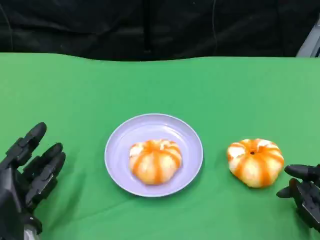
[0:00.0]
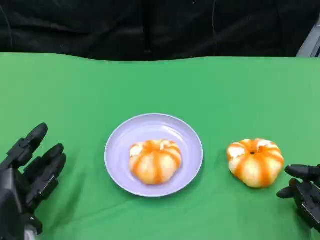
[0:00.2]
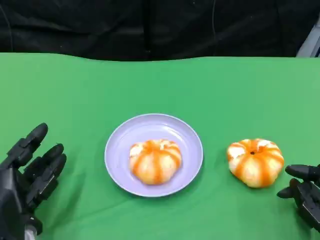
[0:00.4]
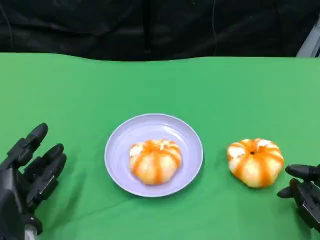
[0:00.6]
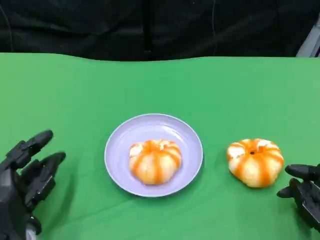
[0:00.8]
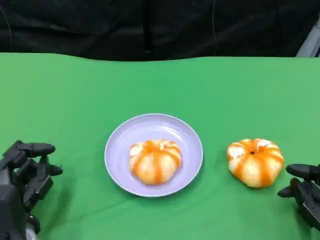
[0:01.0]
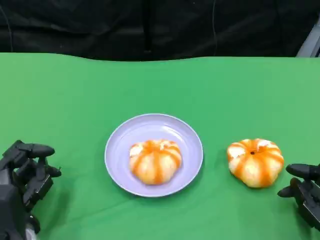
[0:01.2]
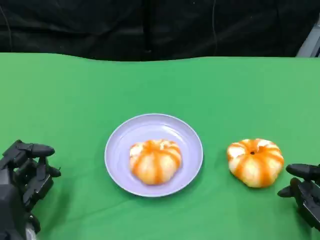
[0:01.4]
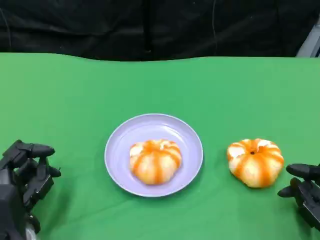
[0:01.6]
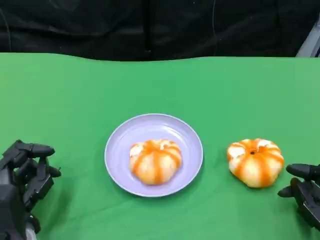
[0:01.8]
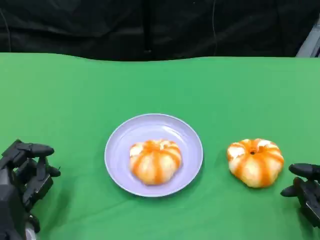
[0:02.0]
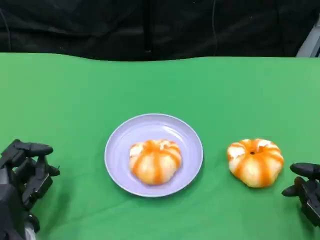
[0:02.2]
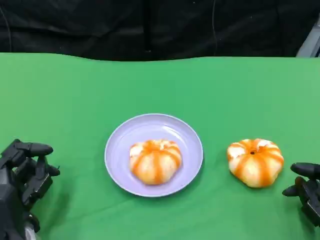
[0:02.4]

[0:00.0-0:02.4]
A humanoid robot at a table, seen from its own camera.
Task of the whole recording: Grasp the bread from the table and place it into the plate.
0.0 to 1.2 s: The hands move only a little.
1.2 to 2.4 s: Both hands stay about where they are.

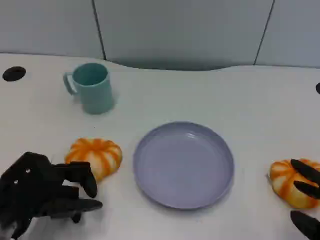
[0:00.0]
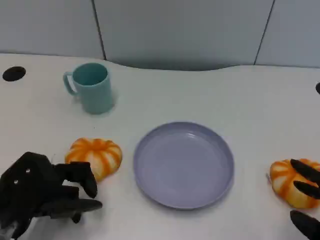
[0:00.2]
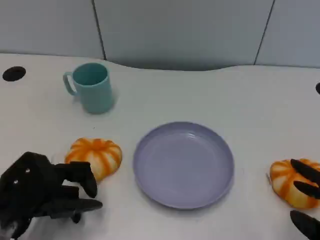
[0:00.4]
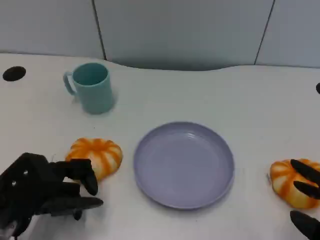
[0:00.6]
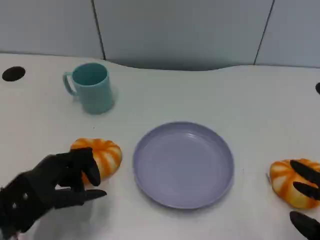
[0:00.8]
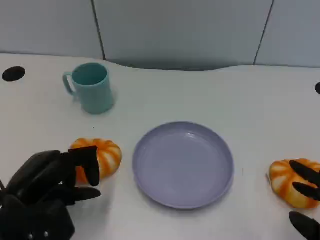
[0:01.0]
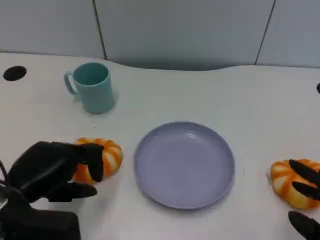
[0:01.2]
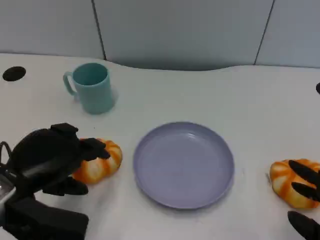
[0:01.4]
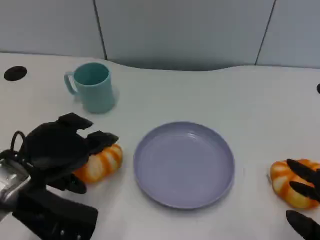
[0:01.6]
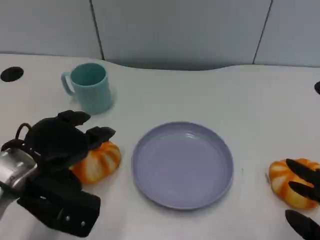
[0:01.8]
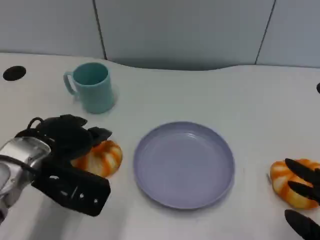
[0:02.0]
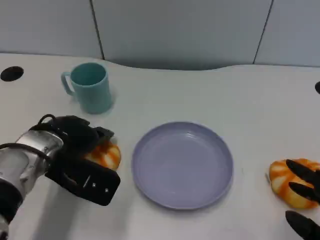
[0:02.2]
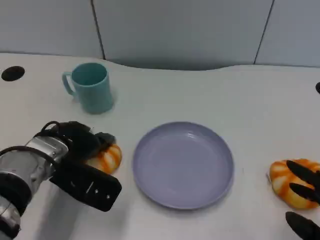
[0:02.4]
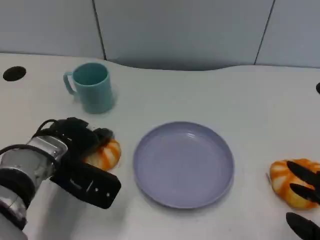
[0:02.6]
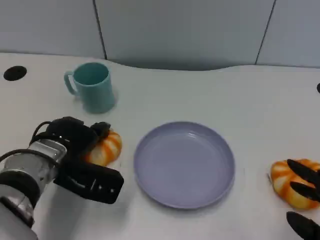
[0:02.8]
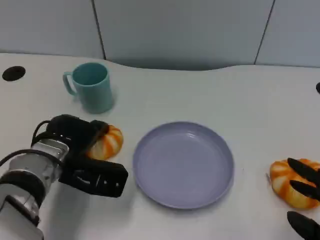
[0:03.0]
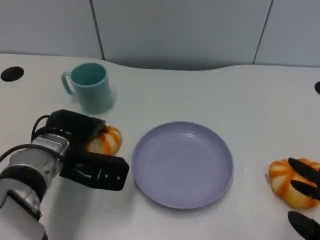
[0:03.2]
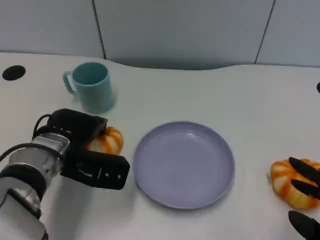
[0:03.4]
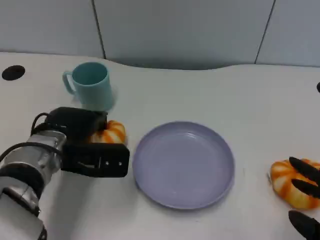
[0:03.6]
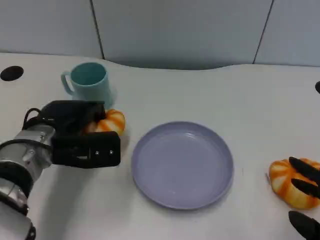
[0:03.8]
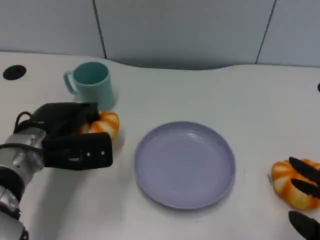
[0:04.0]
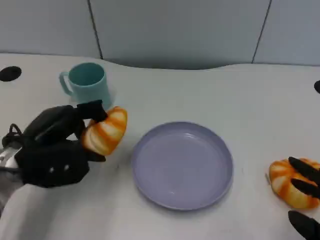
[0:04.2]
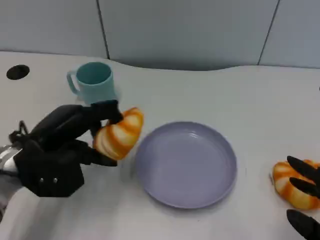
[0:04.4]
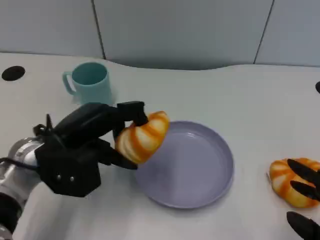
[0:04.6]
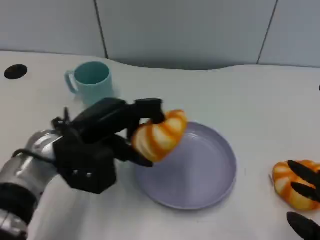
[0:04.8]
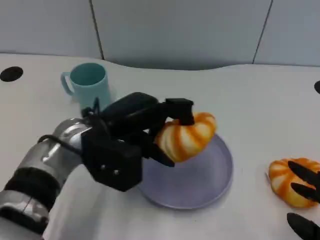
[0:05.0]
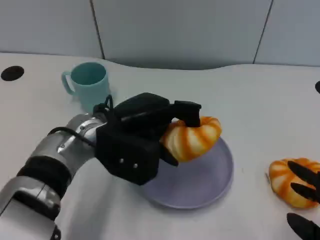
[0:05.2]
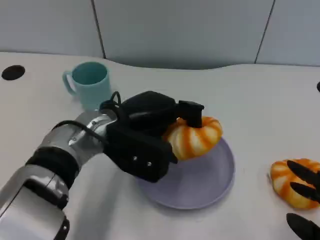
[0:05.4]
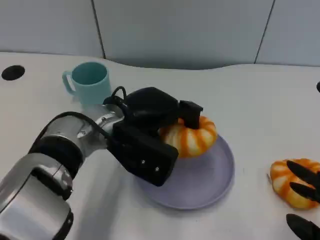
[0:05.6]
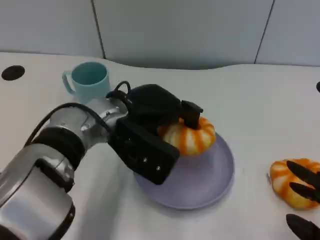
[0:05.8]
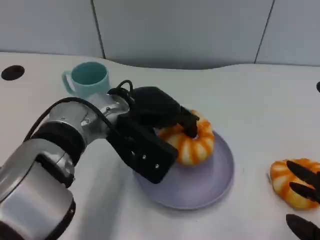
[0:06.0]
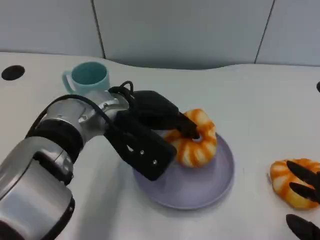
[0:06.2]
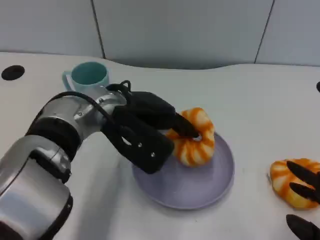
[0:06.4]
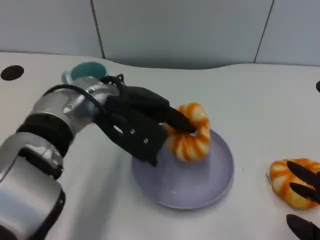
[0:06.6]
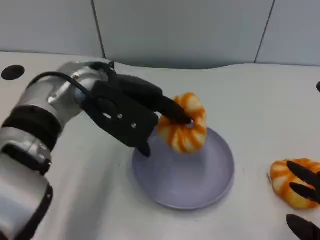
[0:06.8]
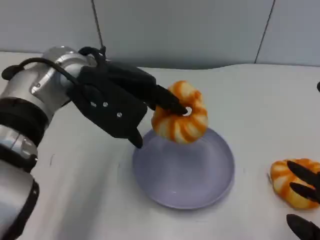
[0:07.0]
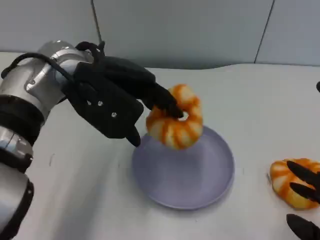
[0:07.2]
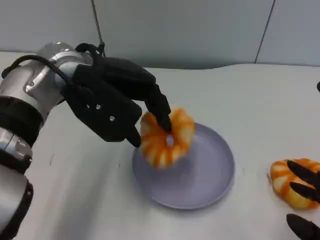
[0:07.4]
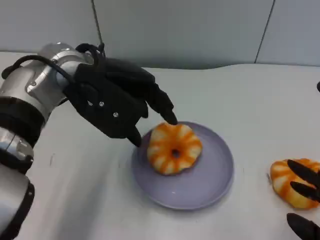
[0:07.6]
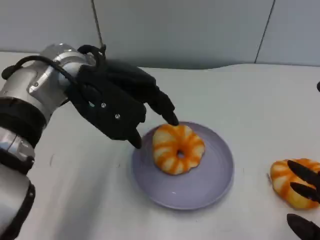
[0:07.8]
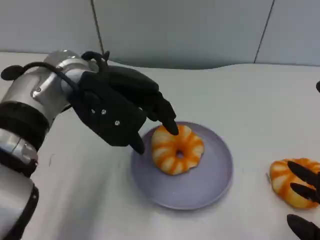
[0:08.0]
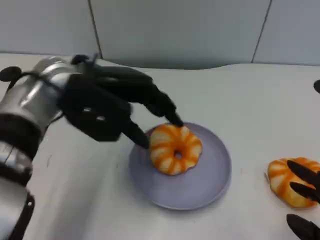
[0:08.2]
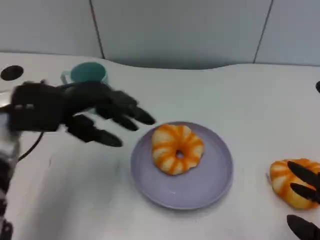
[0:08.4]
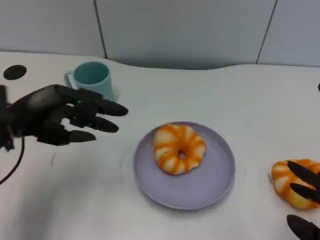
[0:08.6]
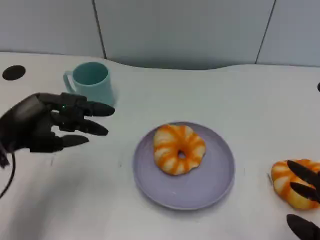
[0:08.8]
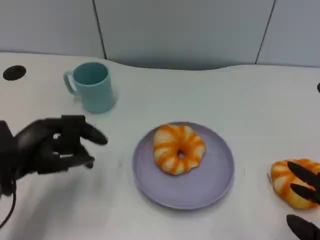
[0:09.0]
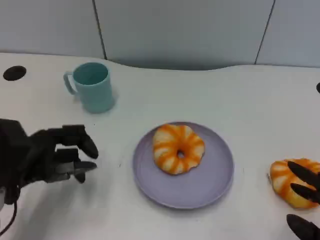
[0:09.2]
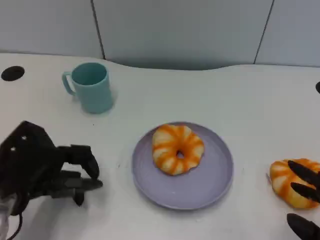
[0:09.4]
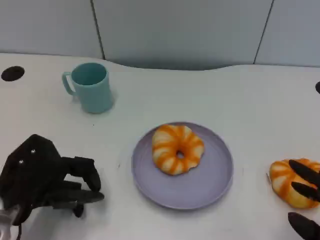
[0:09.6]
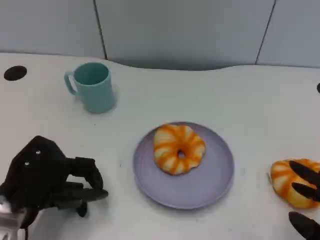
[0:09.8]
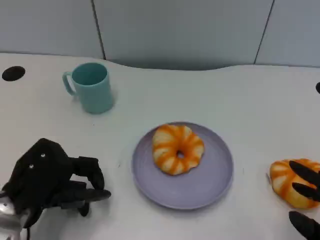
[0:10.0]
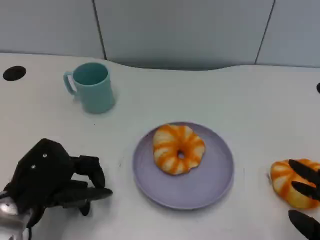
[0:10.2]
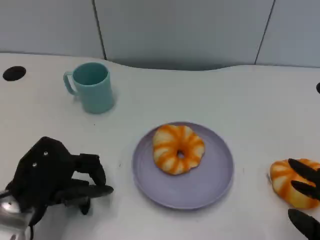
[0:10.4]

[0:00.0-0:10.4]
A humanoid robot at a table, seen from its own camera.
Task of the whole recording: Grasp the bread from the table and place it into the plate.
0.0 to 1.4 s: The left hand shifts some 5 cm upward.
1.4 to 3.0 s: The left hand is displaced forward by about 10 cm.
3.0 to 4.4 s: The left hand shifts by some 5 cm.
4.4 to 6.0 s: The left hand moves to the right, approximately 10 cm.
6.0 to 7.4 s: The left hand travels upward by some 10 cm.
7.4 to 9.0 s: The left hand moves to the left, downward and backward, about 20 cm.

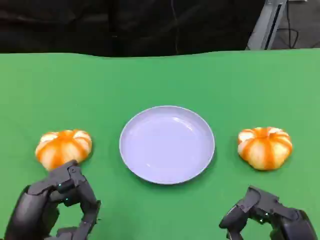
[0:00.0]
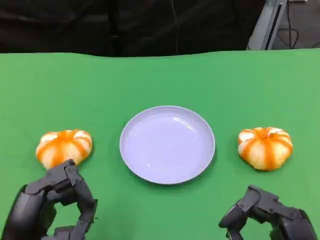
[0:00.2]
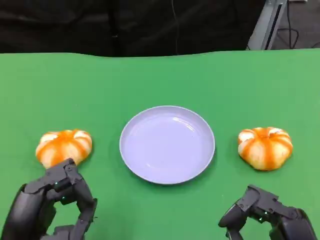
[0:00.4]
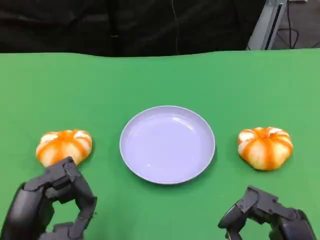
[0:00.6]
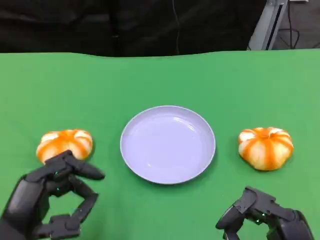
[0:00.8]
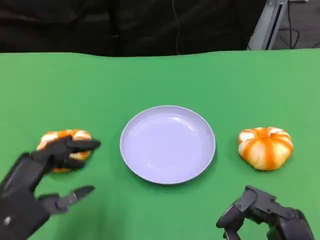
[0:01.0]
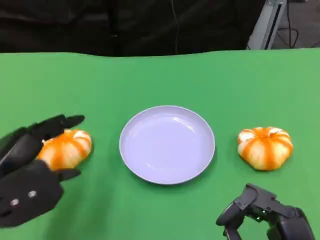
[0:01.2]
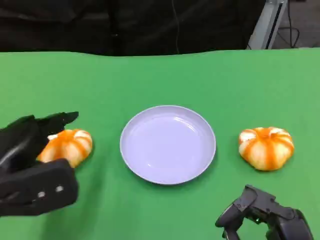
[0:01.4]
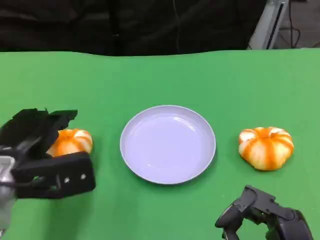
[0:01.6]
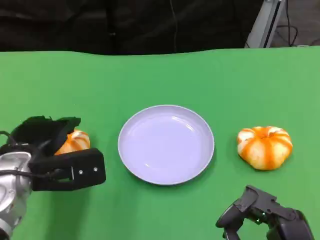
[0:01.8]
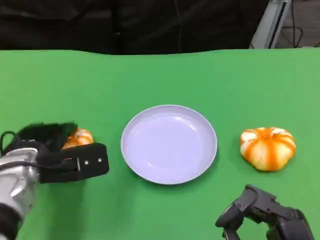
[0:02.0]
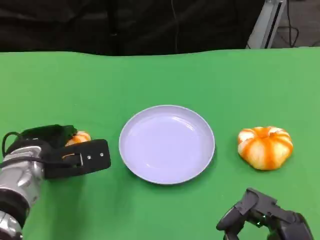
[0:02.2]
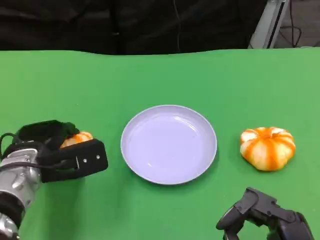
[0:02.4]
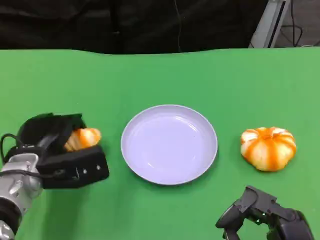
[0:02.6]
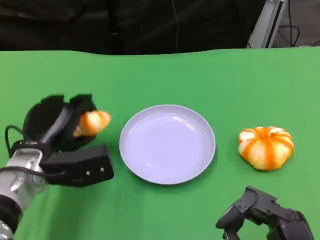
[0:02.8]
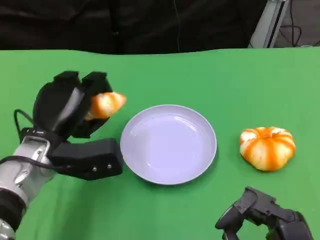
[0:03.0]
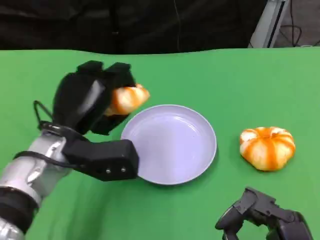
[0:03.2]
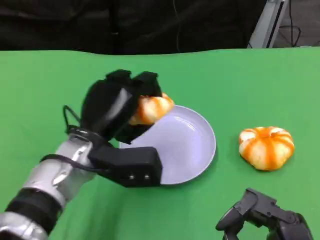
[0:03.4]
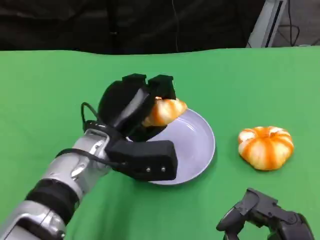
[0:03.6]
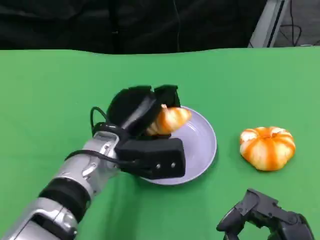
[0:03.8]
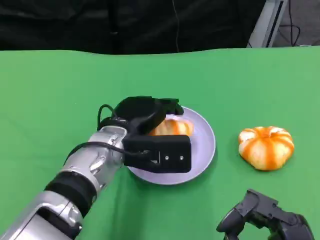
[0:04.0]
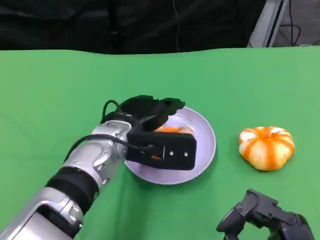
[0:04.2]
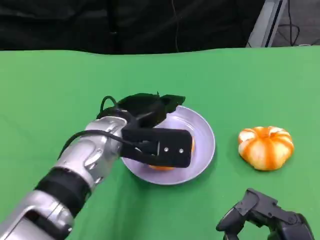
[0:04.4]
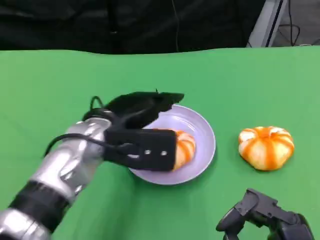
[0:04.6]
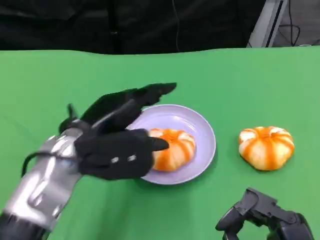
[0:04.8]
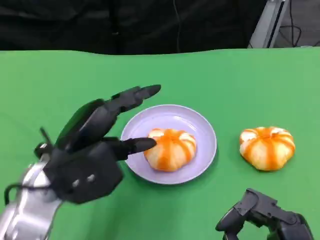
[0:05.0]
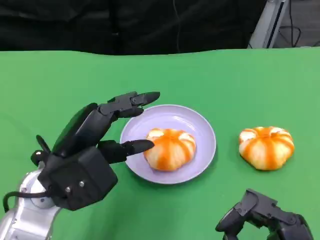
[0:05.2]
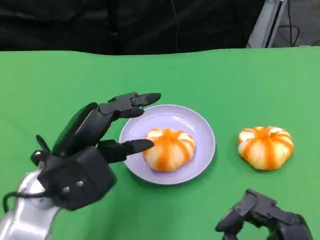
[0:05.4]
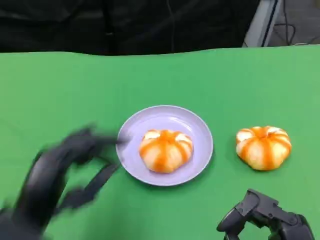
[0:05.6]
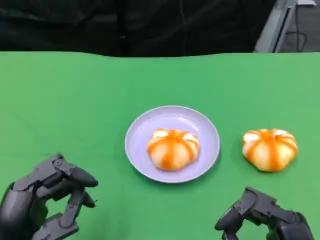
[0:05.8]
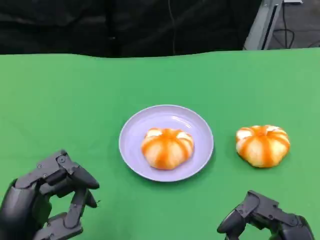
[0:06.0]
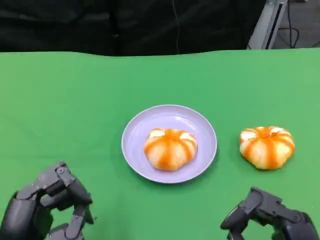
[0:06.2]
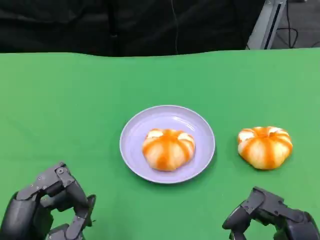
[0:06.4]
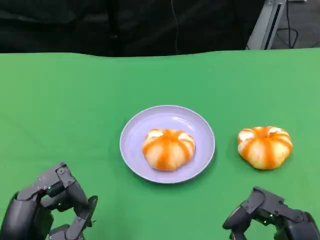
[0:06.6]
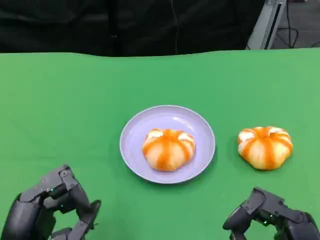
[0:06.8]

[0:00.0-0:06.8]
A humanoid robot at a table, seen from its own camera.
Task of the whole recording: Grasp the bread from the table and place it into the plate.
0.0 to 1.4 s: The left hand moves forward, some 10 cm.
1.4 to 2.8 s: The left hand moves forward, roughly 5 cm.
2.8 to 4.0 s: The left hand is displaced to the right by some 10 cm.
4.0 to 5.4 s: The left hand travels to the left and backward by roughly 15 cm.
5.4 to 6.8 s: The left hand travels backward by about 10 cm.

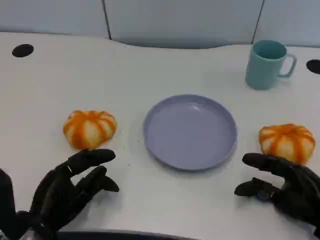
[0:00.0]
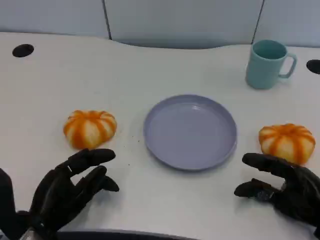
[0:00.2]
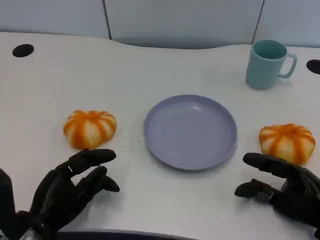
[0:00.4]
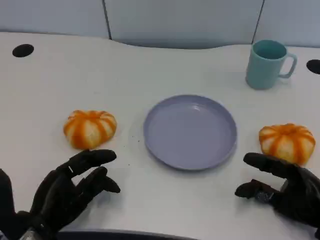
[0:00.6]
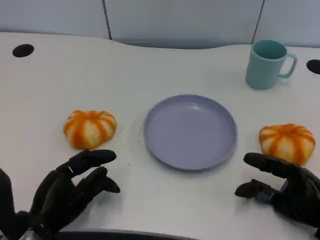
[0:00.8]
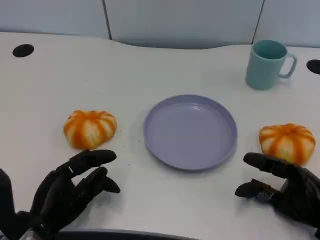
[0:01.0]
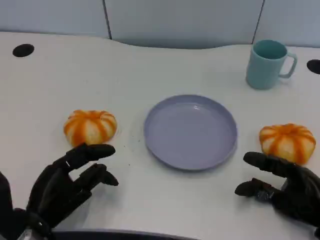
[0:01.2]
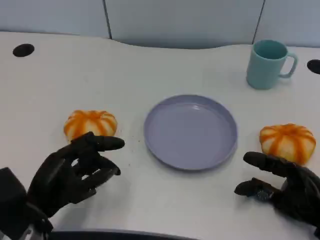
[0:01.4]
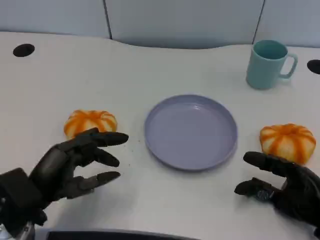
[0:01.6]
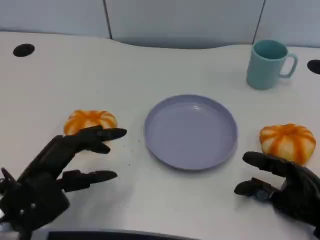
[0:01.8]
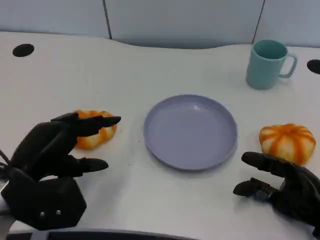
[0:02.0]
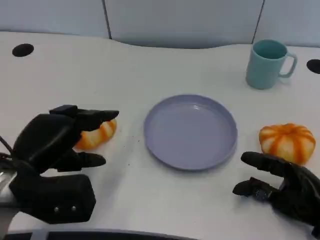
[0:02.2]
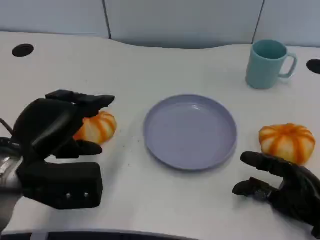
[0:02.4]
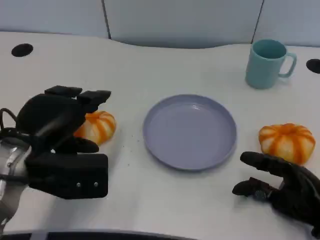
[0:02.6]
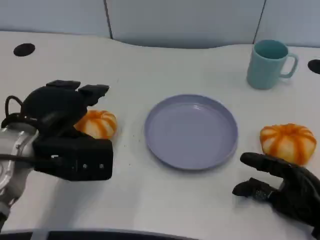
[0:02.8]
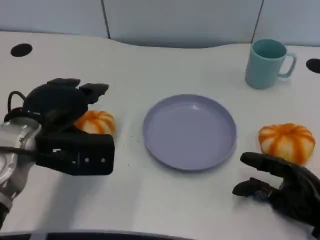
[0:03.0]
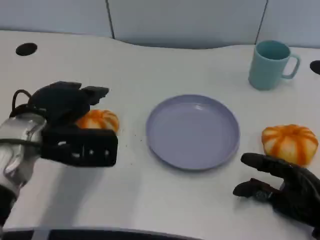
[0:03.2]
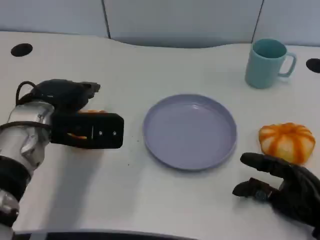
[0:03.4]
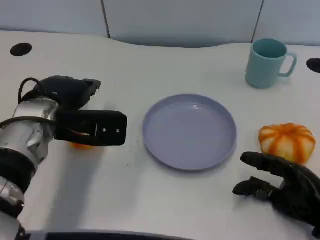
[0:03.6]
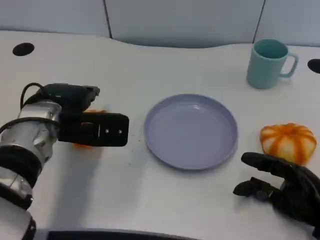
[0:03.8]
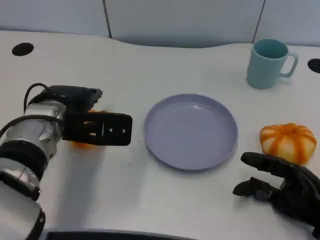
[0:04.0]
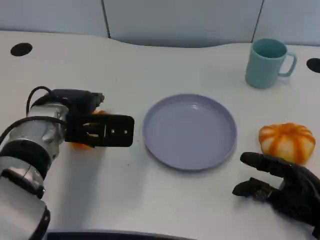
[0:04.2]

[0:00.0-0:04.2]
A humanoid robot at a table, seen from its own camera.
Task of the whole recording: Grasp the bread from the table and place it into the plate.
1.4 to 2.8 s: The left hand heads upward and forward, covering about 10 cm.
2.8 to 4.2 s: The left hand goes about 5 cm forward.
